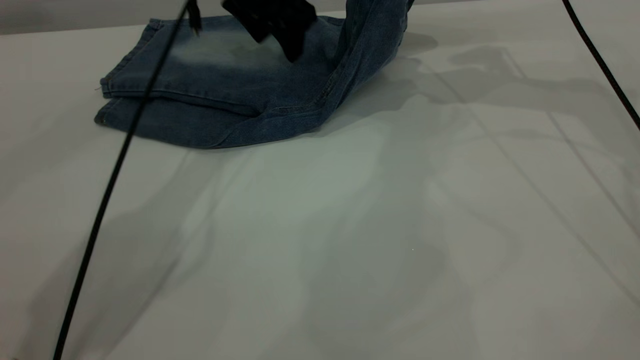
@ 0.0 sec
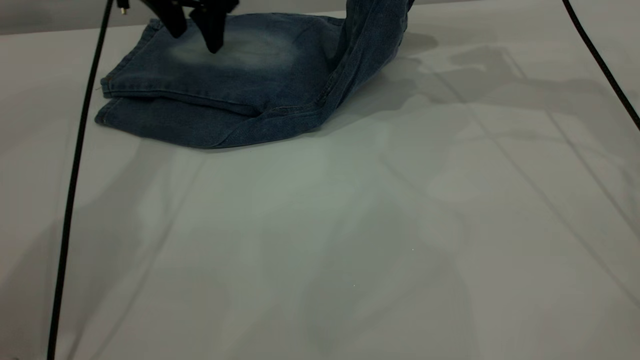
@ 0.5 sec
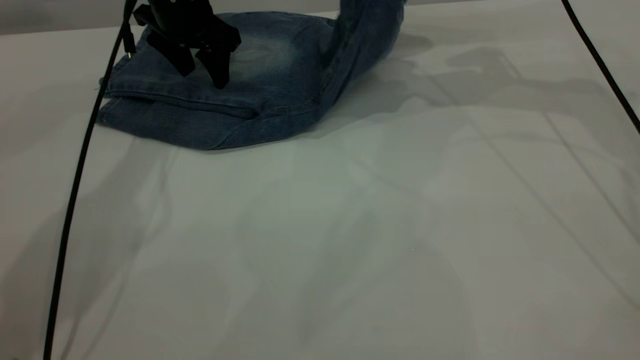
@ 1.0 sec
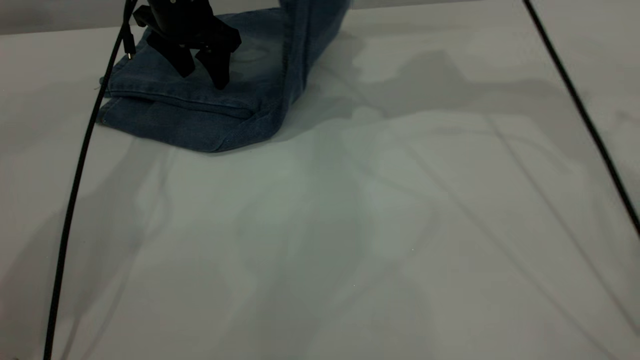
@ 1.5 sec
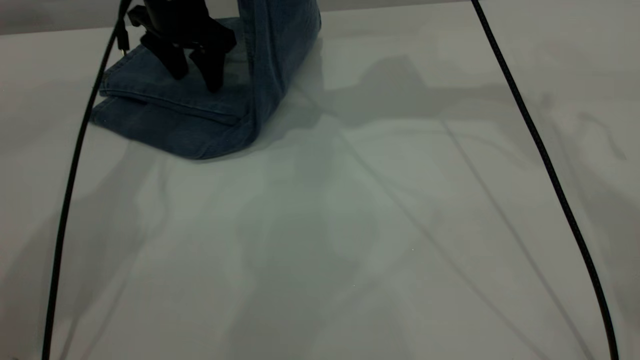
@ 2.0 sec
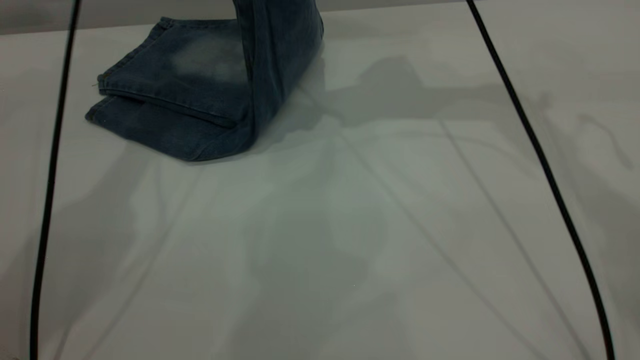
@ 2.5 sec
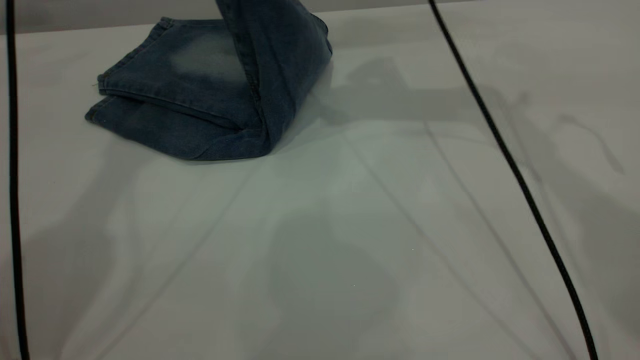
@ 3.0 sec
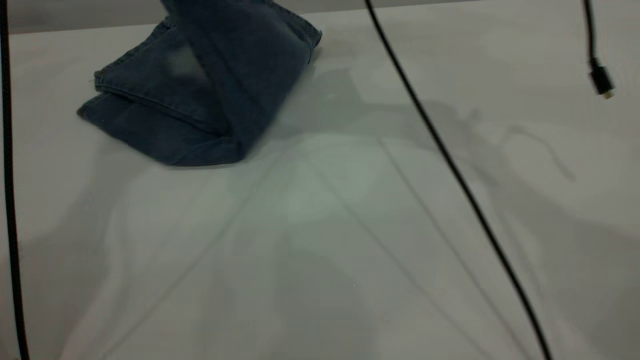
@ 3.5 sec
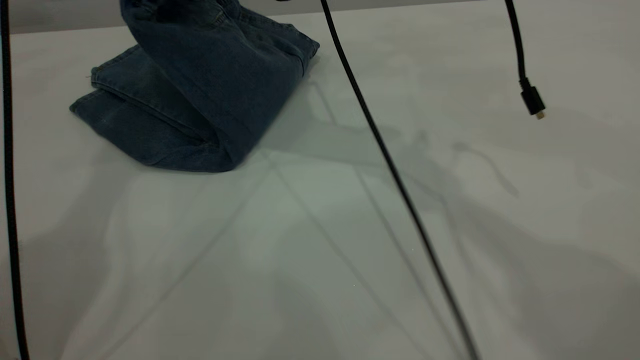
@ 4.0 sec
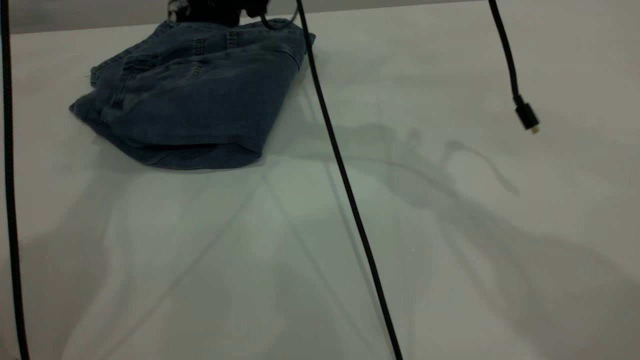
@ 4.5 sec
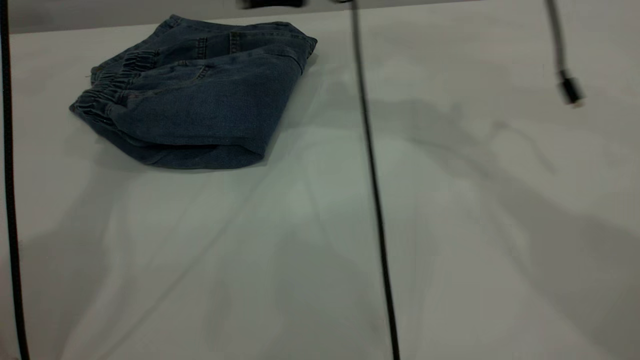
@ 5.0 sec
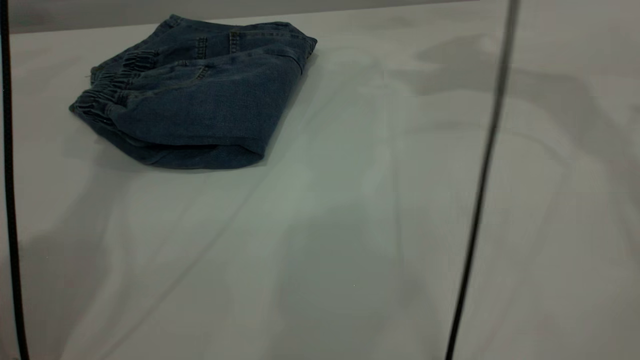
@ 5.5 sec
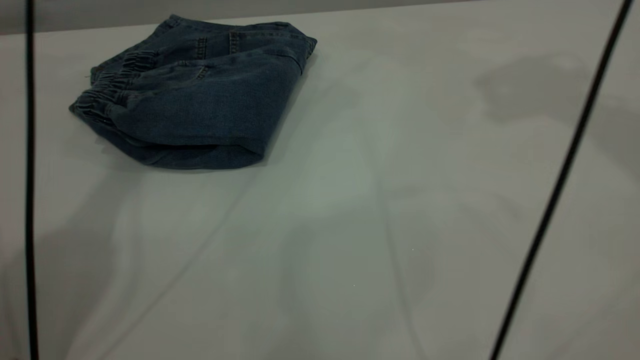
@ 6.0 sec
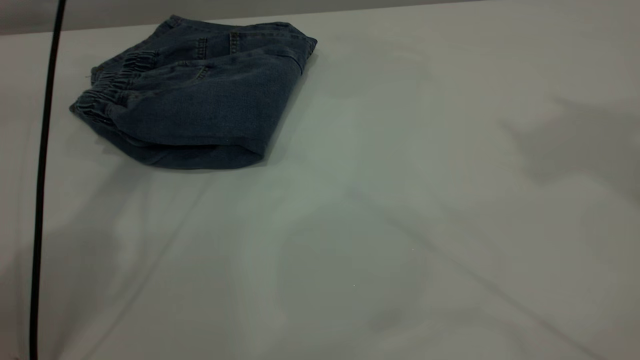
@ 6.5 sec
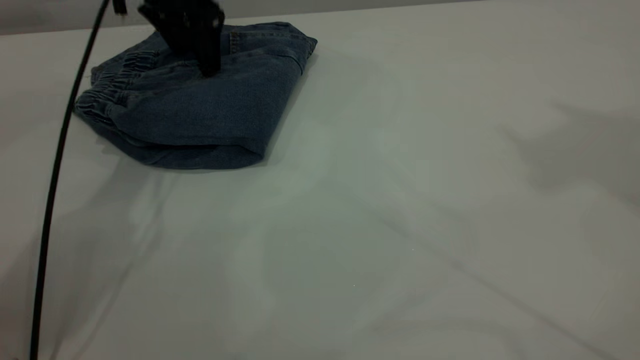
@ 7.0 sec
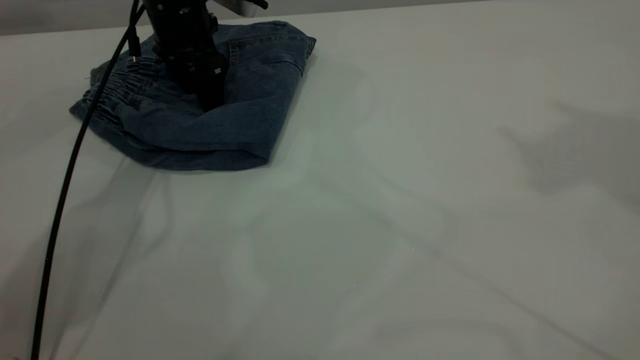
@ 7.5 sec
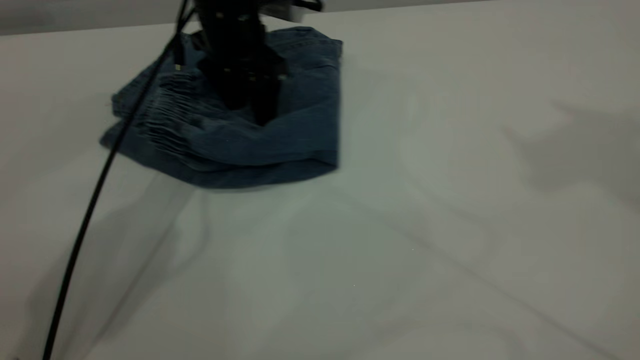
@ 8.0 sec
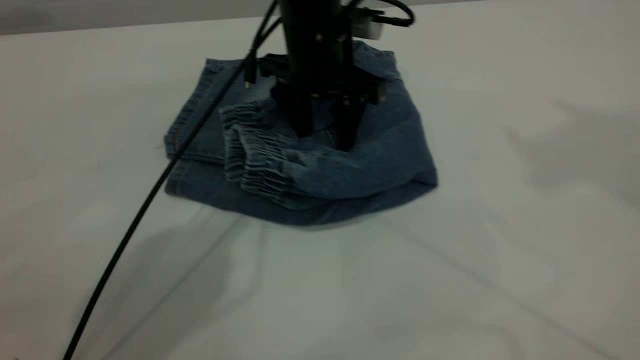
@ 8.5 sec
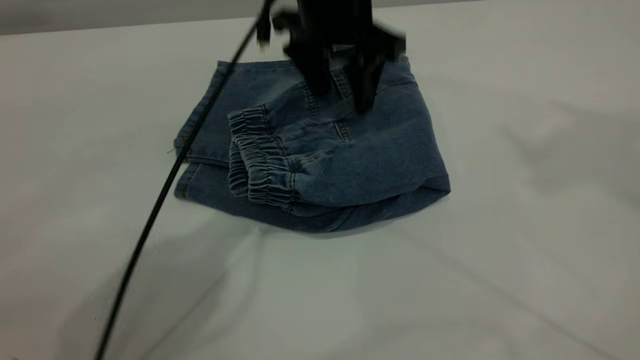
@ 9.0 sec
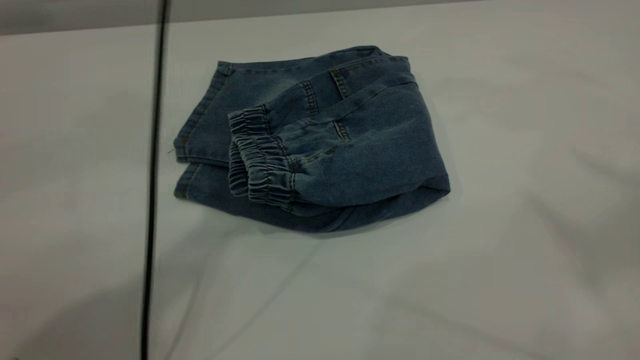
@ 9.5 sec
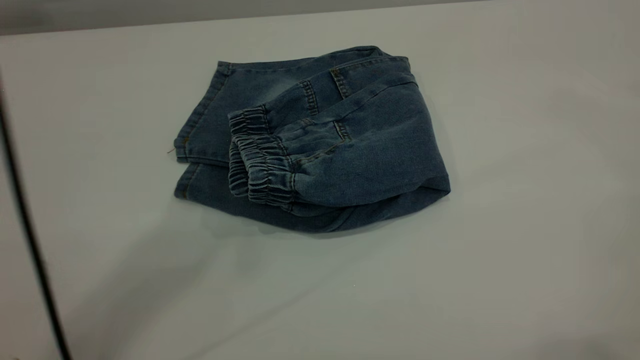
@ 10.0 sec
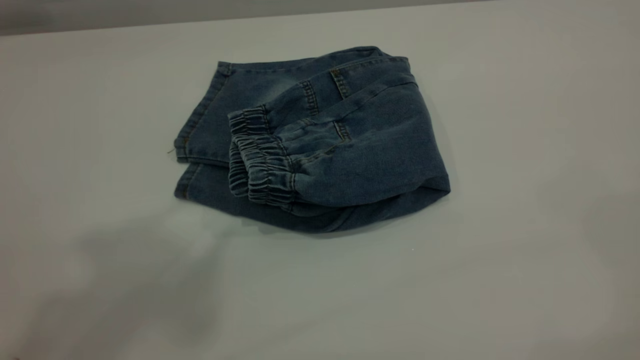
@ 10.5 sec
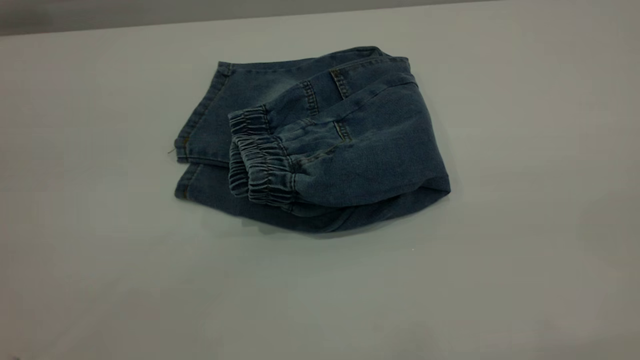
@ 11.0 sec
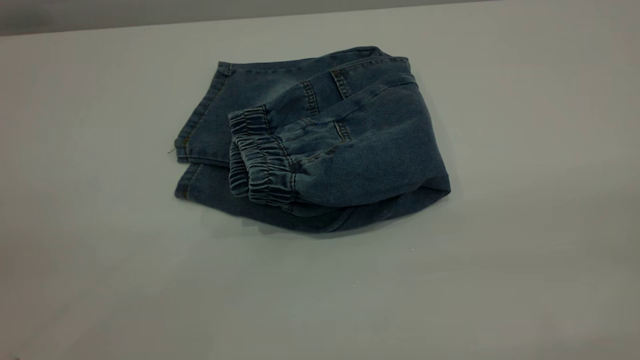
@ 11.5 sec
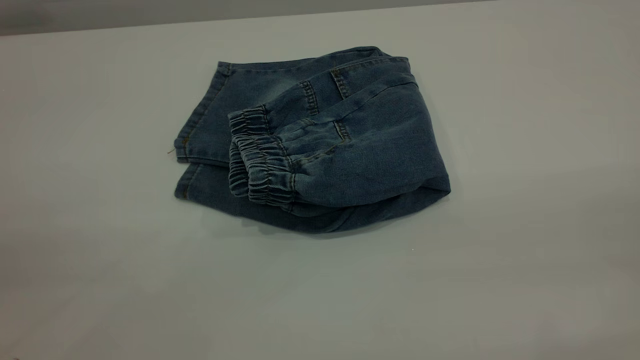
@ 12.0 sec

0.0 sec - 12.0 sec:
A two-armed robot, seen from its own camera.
Step, 0.0 sec - 4.5 sec: Fold your pants from right to left.
0.0 sec - 2.0 sec: The left gripper heads to the left, covering approximately 10 cm, while the right gripper travels to the left and upward by some 15 cm.
2.0 sec - 4.0 sec: The left gripper is displaced upward by approximately 30 cm. The right gripper goes approximately 15 cm to the left and downward.
4.0 sec - 6.0 sec: The right gripper moves to the right and upward, some 35 cm, and opens. The left gripper heads downward, covering roughly 5 cm.
6.0 sec - 8.0 sec: The right gripper shifts about 15 cm upward and backward. Meanwhile the left gripper goes approximately 25 cm downward.
8.0 sec - 10.0 sec: The right gripper heads backward, covering some 20 cm; the left gripper moves upward, some 40 cm.
10.0 sec - 12.0 sec: The left gripper shifts roughly 40 cm backward, downward and to the left.

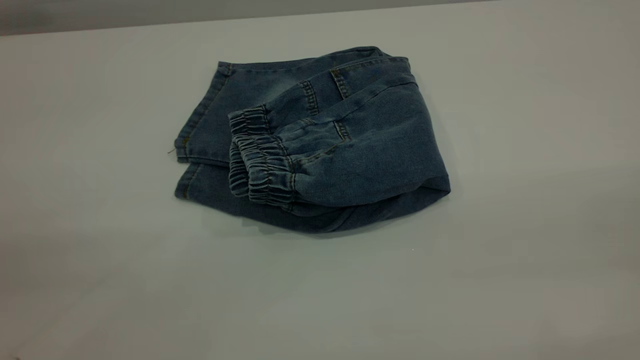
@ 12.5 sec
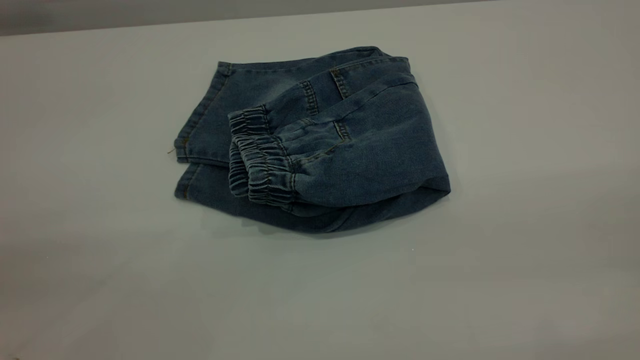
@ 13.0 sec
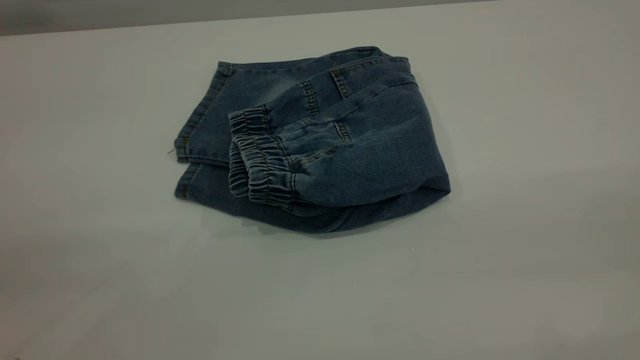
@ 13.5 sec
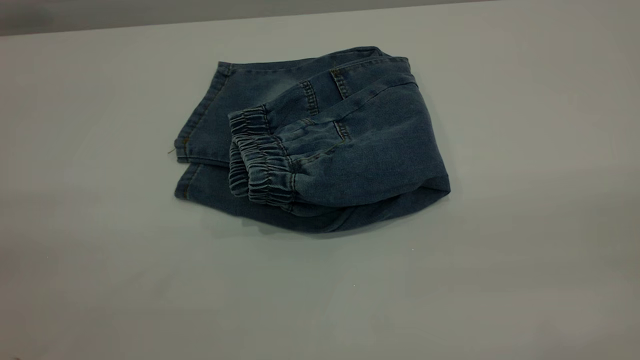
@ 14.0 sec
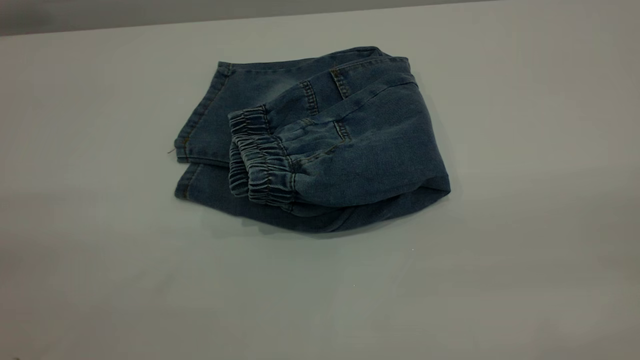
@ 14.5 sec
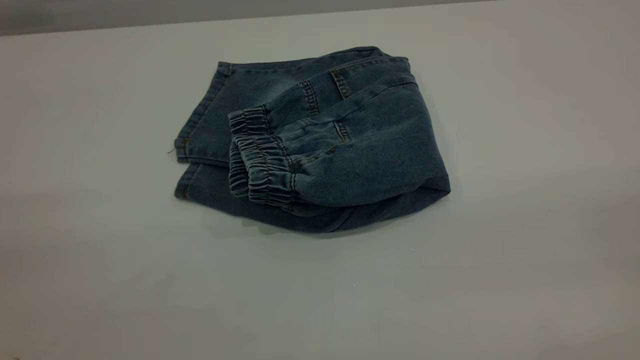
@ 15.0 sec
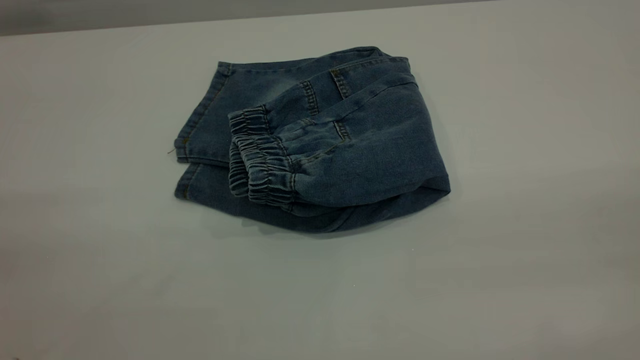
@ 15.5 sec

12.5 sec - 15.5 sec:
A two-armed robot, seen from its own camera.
14.0 sec - 15.5 sec: The two grippers keep their place.
